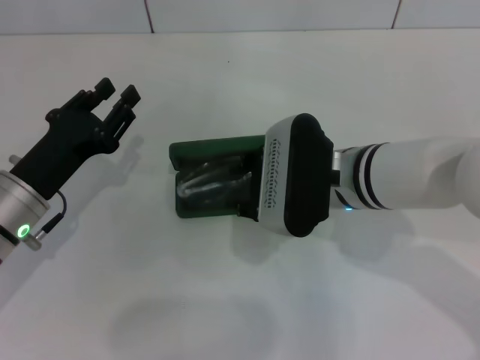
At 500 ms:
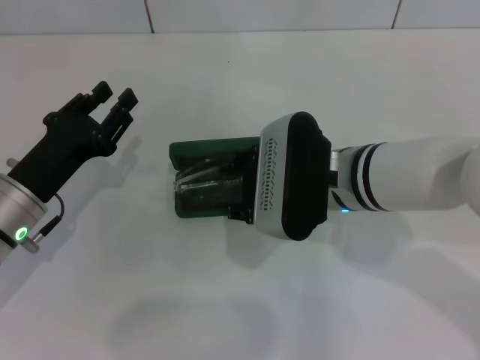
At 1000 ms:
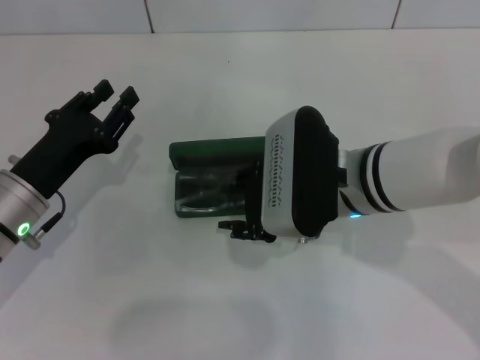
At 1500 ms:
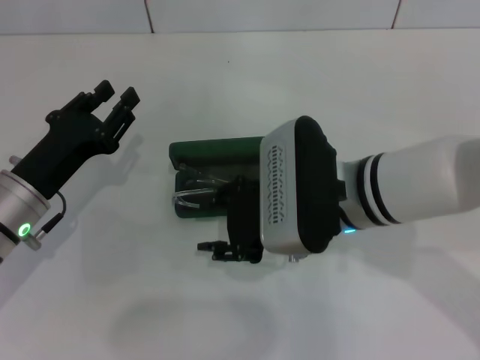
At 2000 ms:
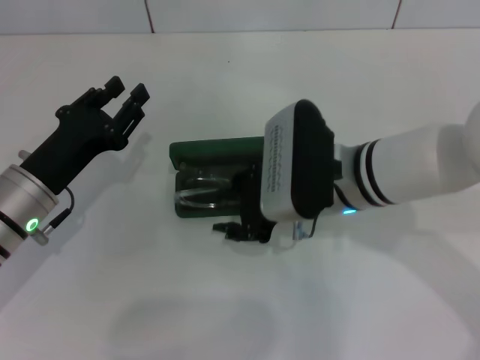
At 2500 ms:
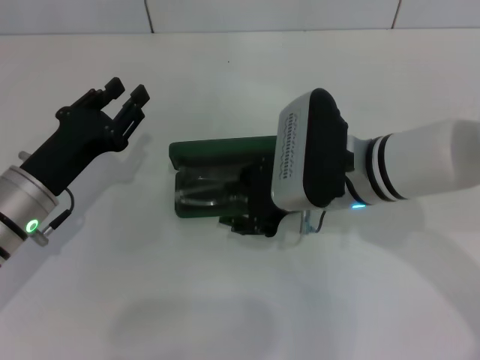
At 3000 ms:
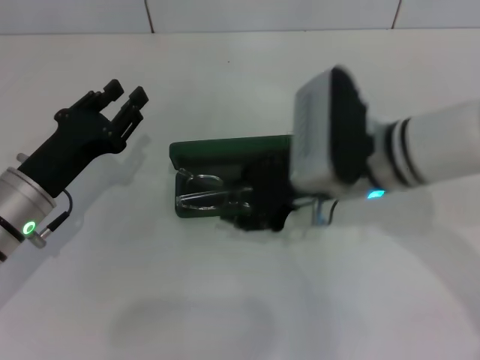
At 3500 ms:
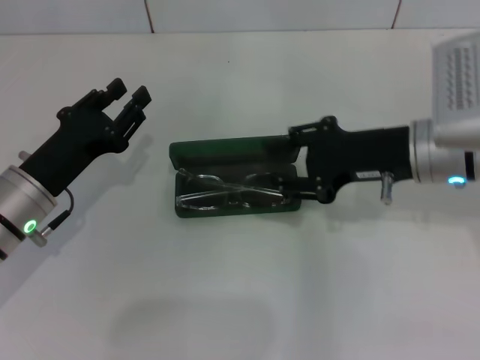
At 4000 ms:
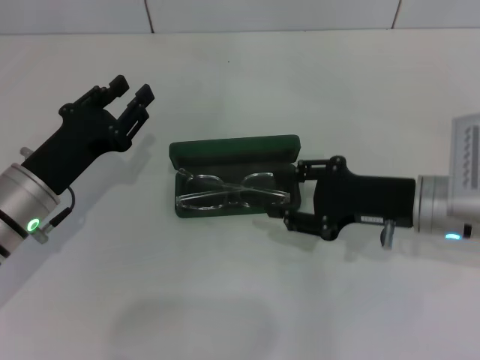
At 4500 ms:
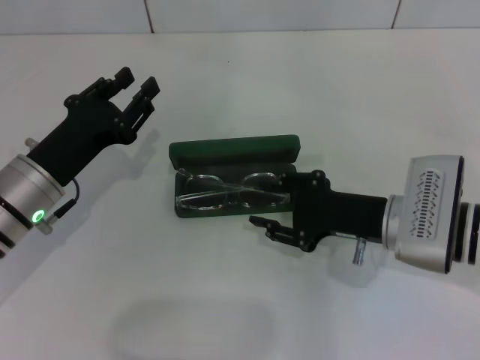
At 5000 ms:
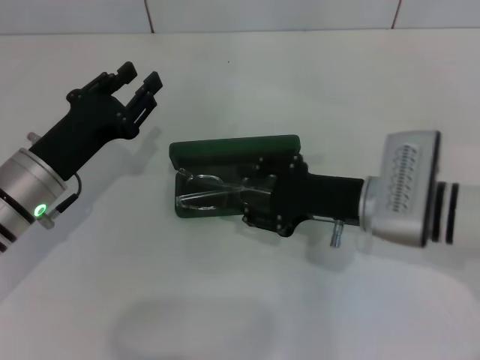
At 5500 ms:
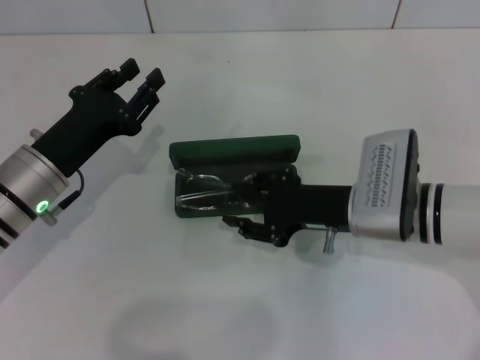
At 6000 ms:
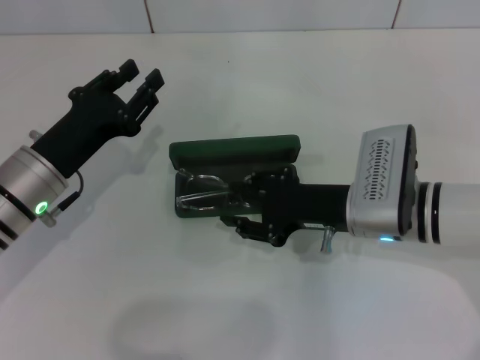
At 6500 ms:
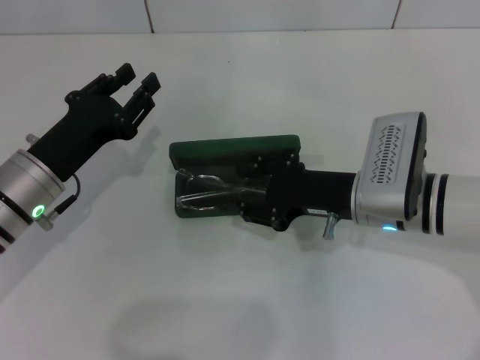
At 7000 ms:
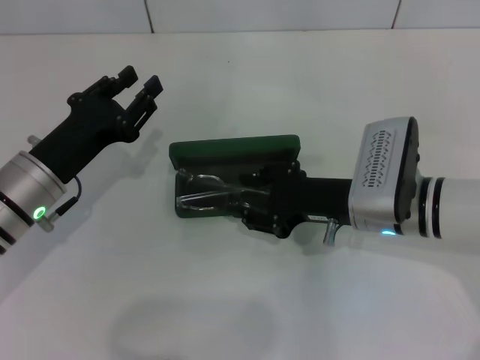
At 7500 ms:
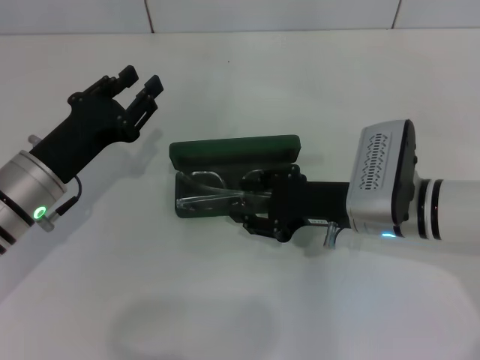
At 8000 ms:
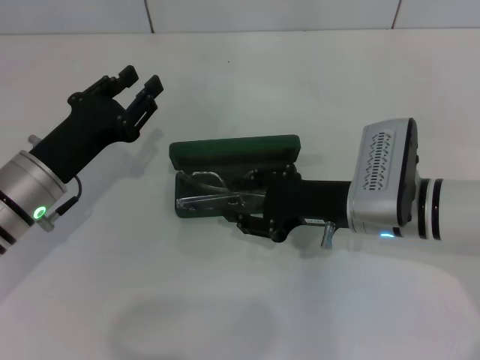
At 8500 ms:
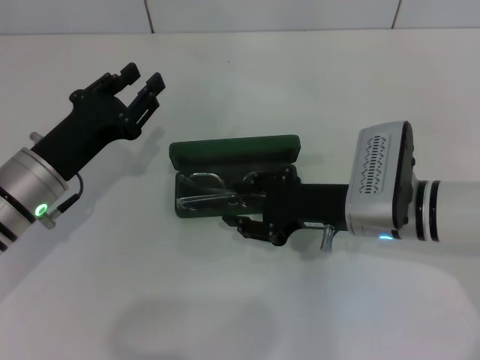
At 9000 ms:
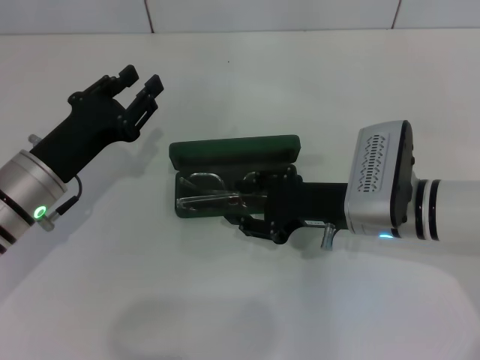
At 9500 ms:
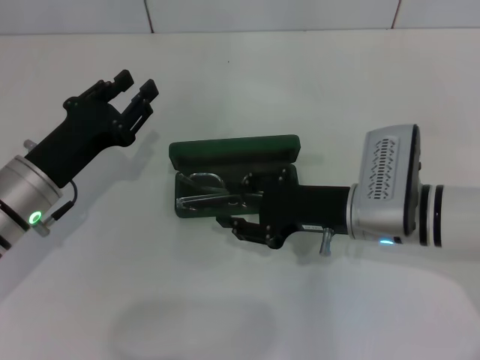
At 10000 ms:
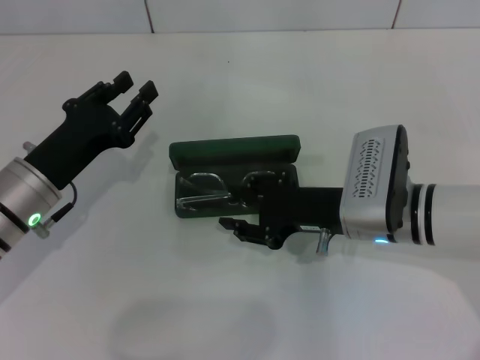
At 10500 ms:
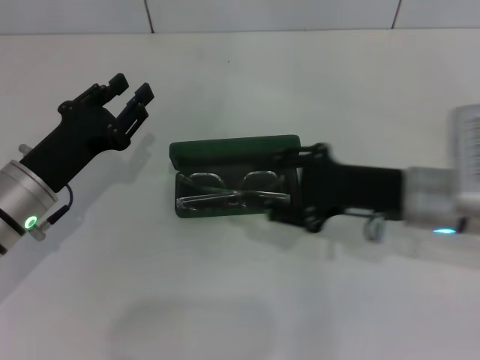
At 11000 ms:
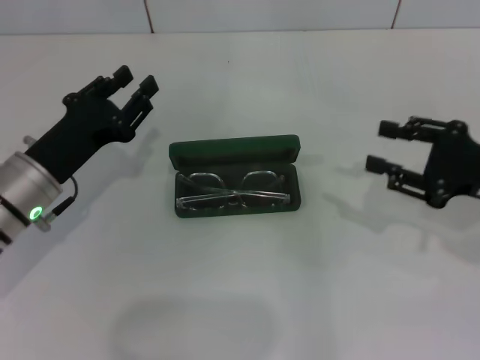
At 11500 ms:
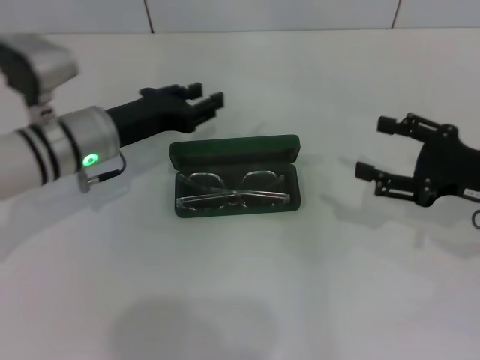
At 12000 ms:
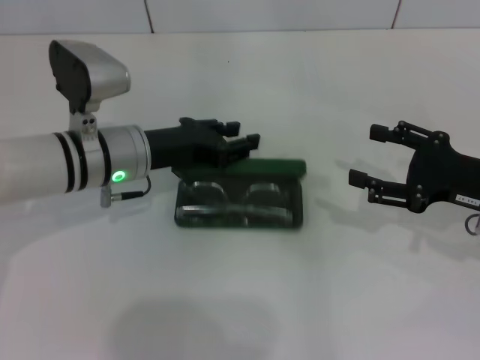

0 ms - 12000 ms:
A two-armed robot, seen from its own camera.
Step, 0 ms - 2500 ms: Put the glasses into the case with your right hand.
0 ms - 2000 ms: The grippers stay close to where they were, moving slightly.
2000 ms - 4000 ms: The right gripper moves to the right, approximately 10 cm.
4000 ms - 6000 ms: The right gripper is displaced to the left by some 5 cm.
6000 ms - 10000 ms: Both grippers stay about where they are.
10000 ms - 12000 ms: The left gripper shifts about 10 cm to the right and forward; the right gripper shifts some 15 cm to the right, and opens.

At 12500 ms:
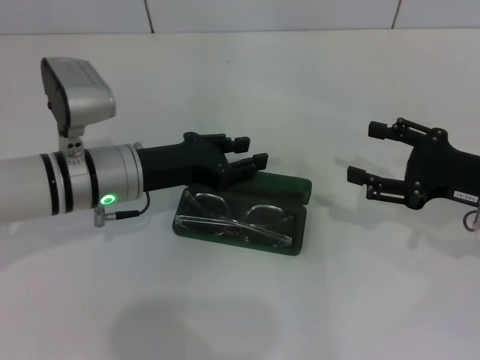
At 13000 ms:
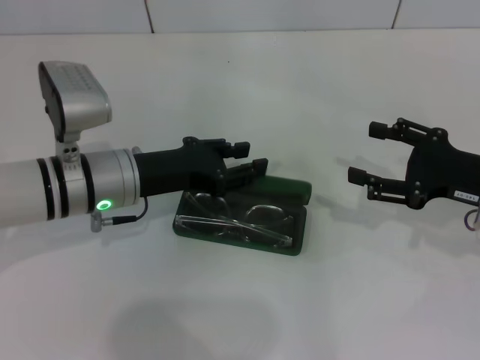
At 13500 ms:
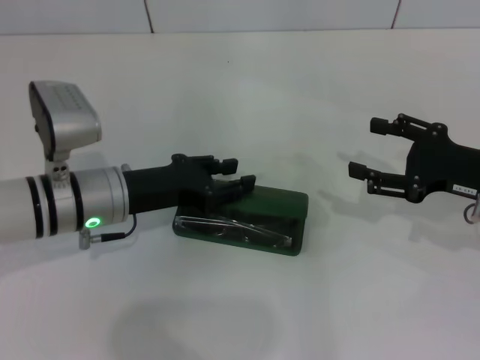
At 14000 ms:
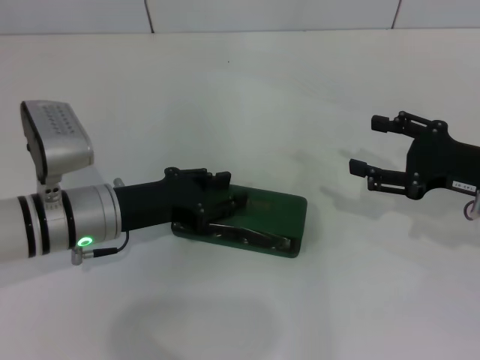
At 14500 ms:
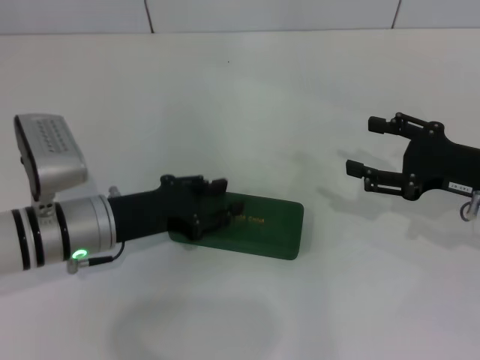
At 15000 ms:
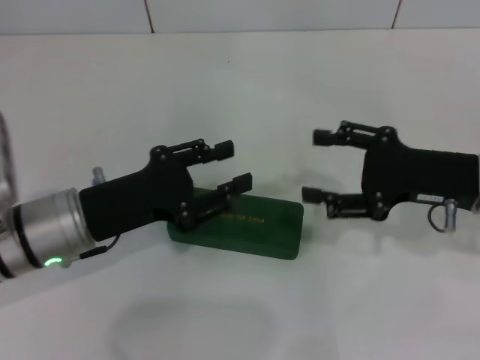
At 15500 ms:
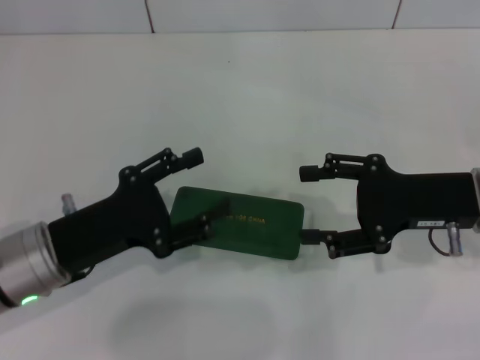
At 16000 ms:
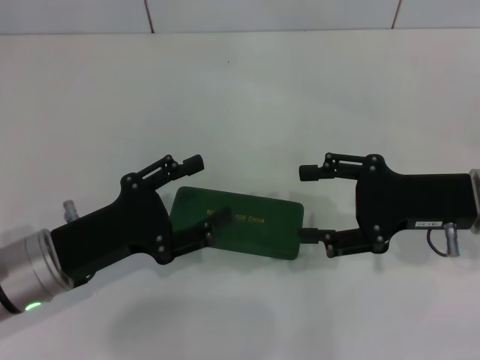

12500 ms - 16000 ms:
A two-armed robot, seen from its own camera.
12500 ms - 14500 ms: The left gripper shifts by about 5 cm.
14500 ms - 16000 ms: The left gripper heads backward, covering roughly 5 cm, and opens up. The right gripper changes place by some 5 cm.
